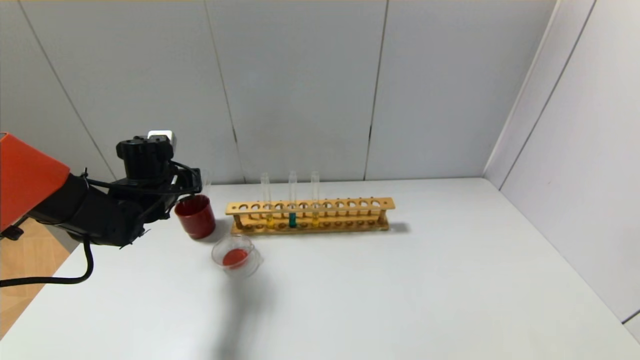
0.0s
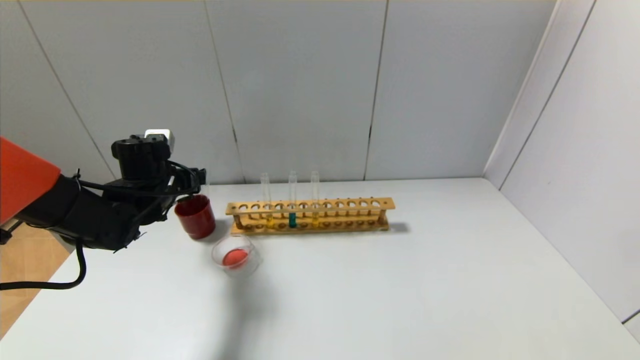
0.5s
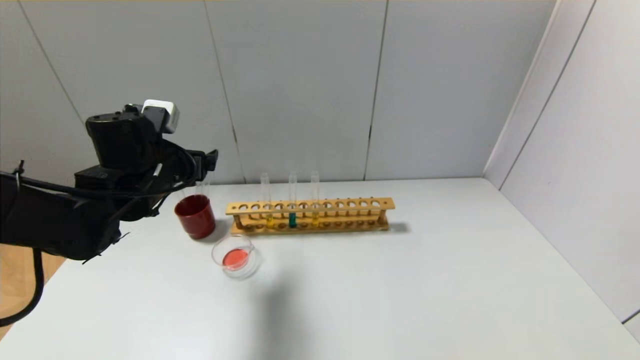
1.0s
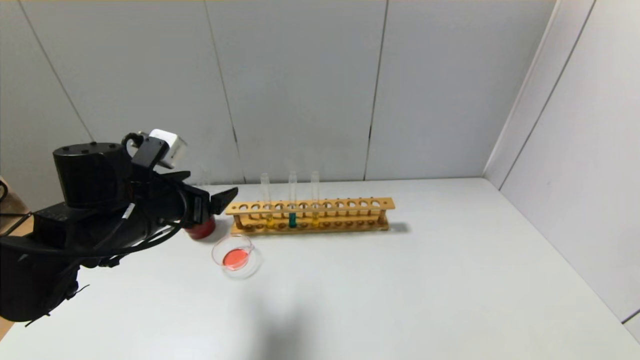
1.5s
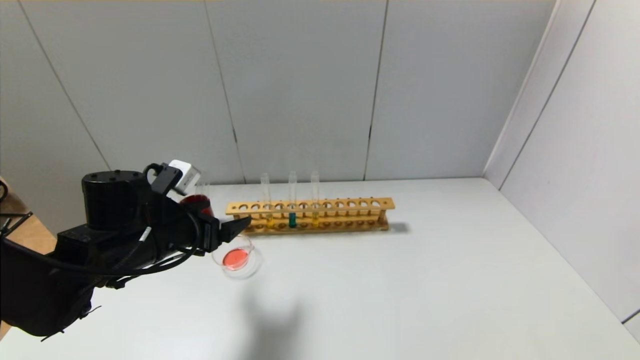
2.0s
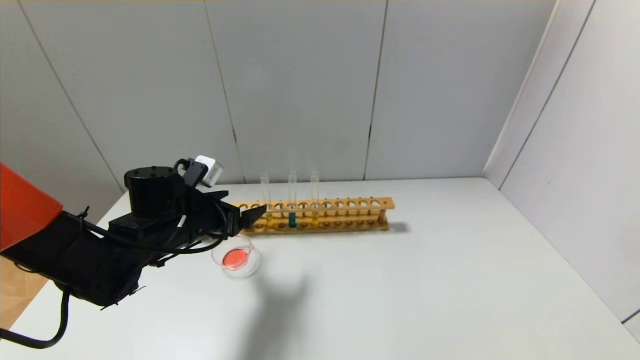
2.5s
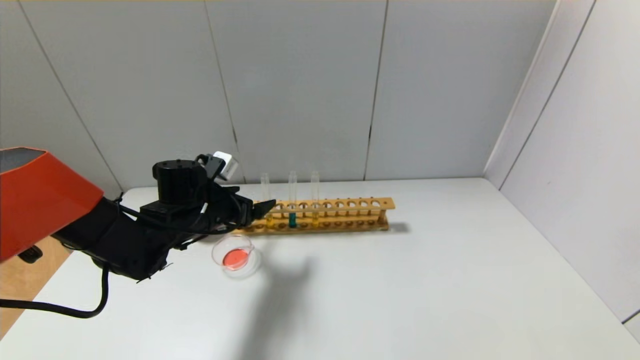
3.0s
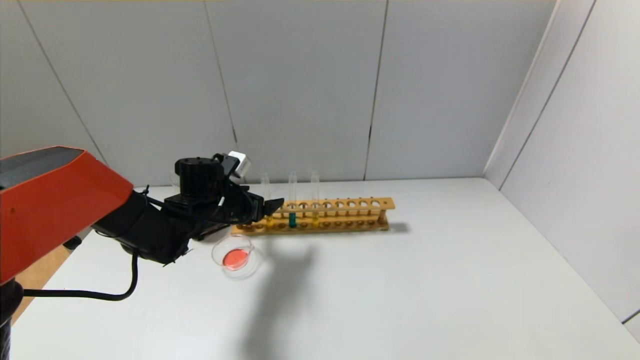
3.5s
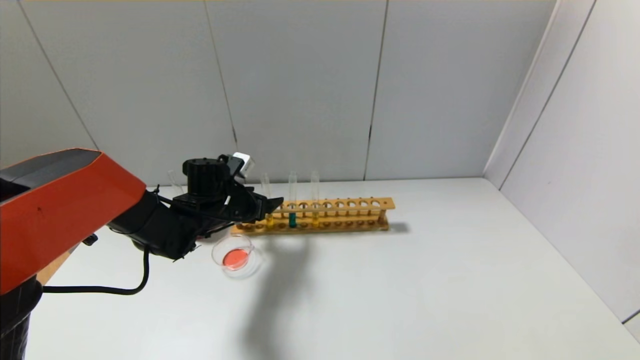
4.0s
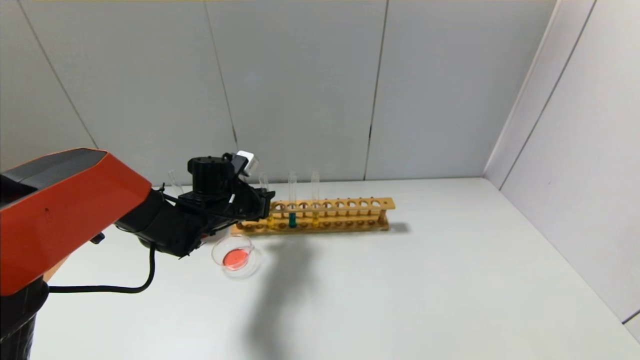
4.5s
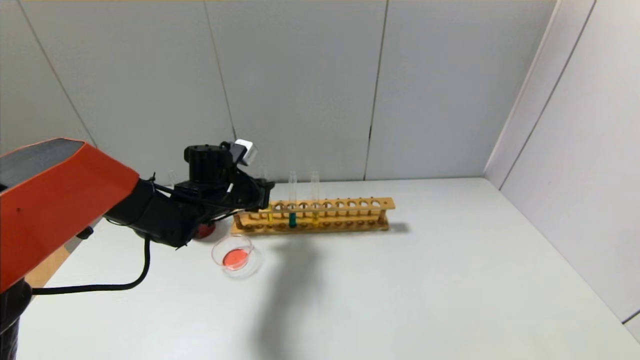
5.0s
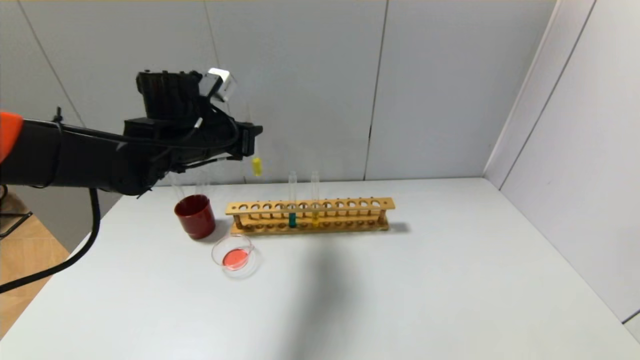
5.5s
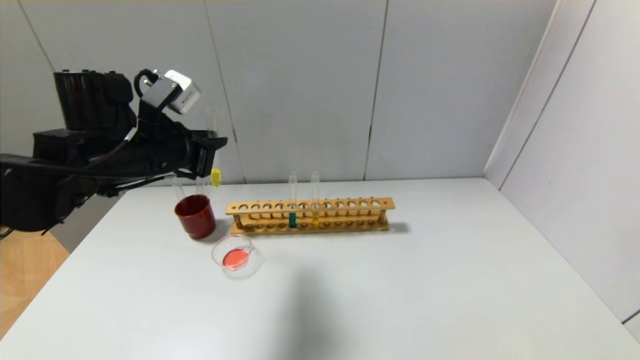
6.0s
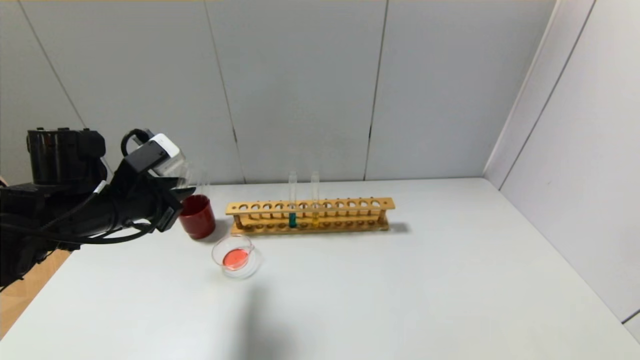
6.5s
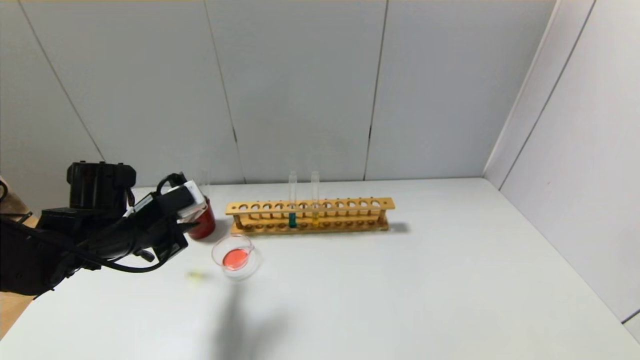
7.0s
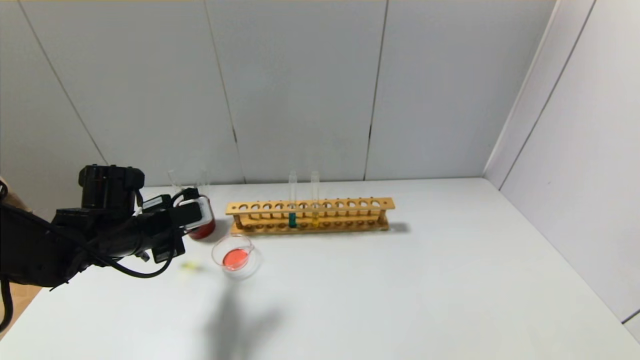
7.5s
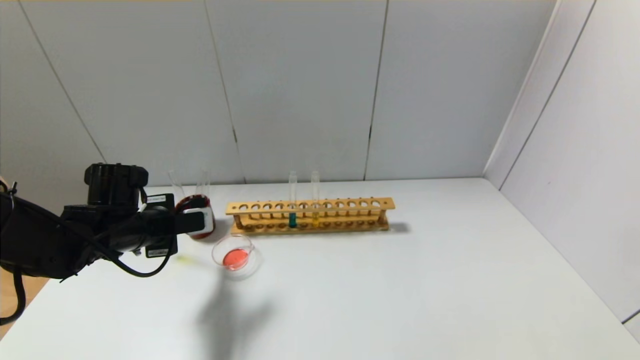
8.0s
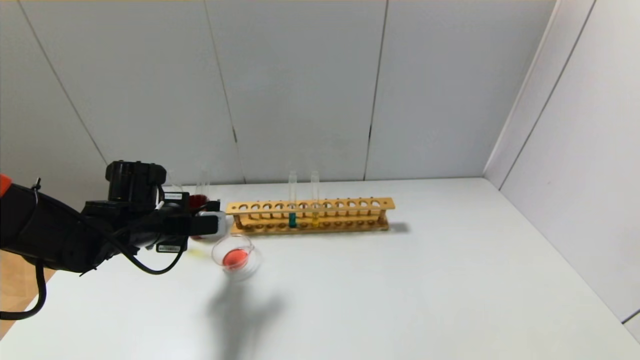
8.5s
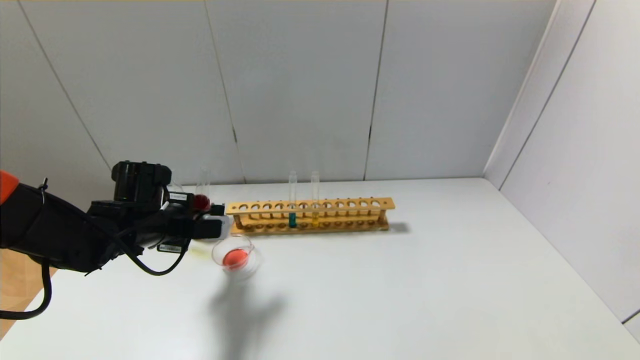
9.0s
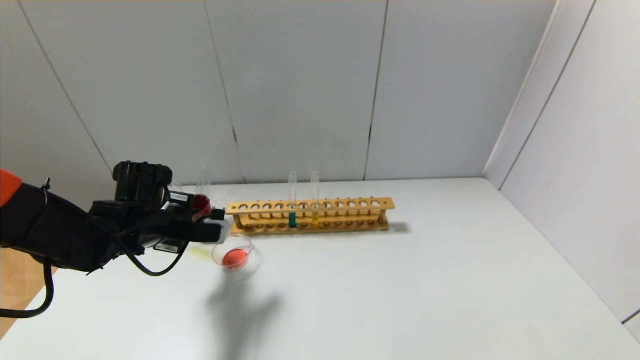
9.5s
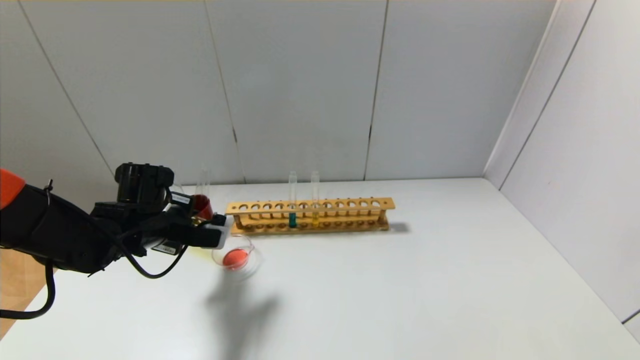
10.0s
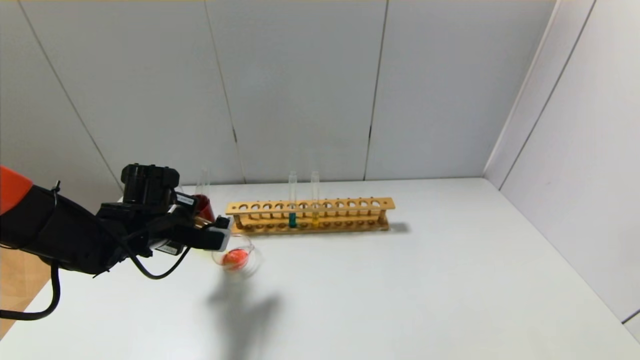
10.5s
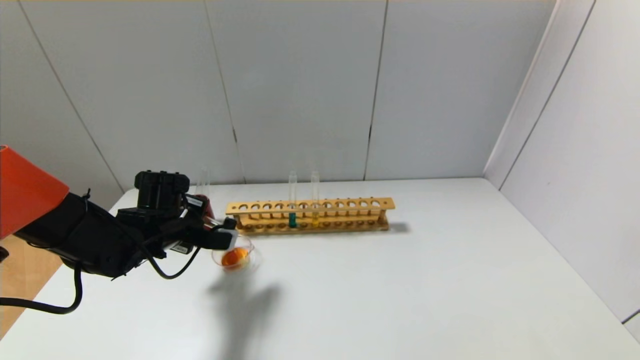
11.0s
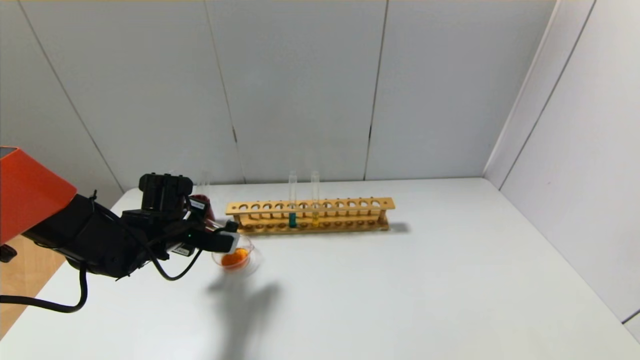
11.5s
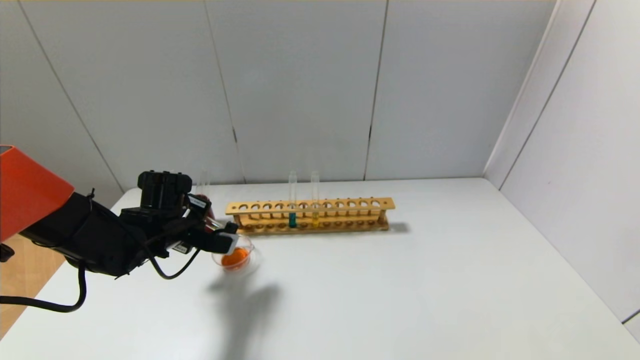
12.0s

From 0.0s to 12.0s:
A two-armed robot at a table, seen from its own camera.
Step, from 0.5s to 4.5s: Grasp the yellow reagent with the left gripper.
From 0.0s to 2.0s: The left gripper is displaced backward by approximately 10 cm, and opens up.
From 2.0s to 4.0s: The left gripper is displaced forward by roughly 10 cm.
From 4.0s to 6.0s: The left gripper shifts approximately 20 cm upward and backward, and closes its fingers.
From 6.0s to 8.0s: The left gripper is displaced downward and to the left by about 15 cm.
From 10.0s to 12.0s: There are only small adjustments of the grippers.

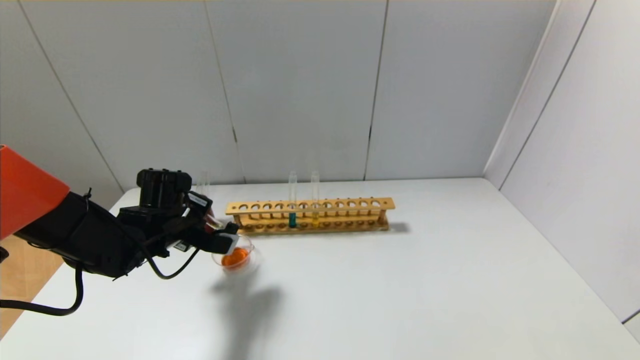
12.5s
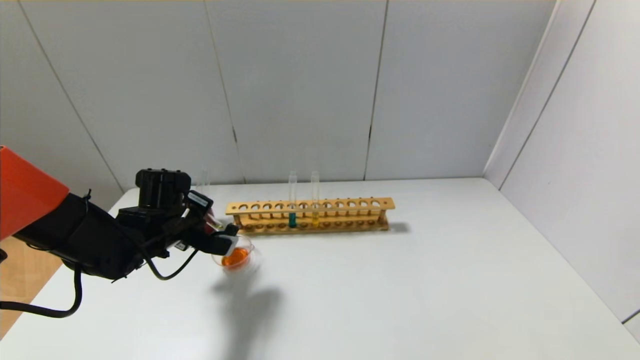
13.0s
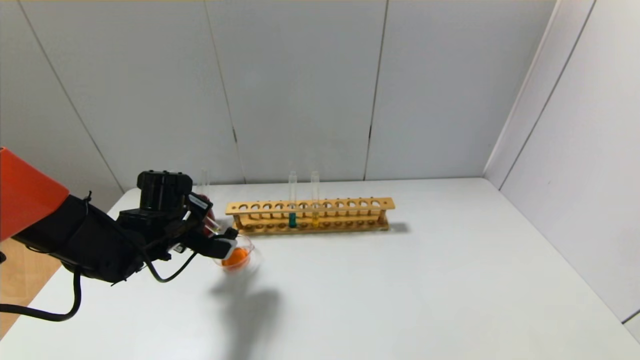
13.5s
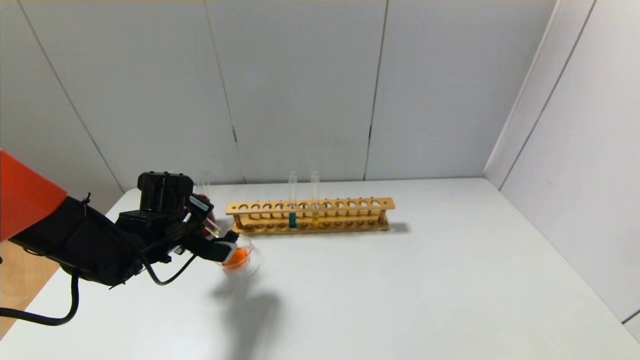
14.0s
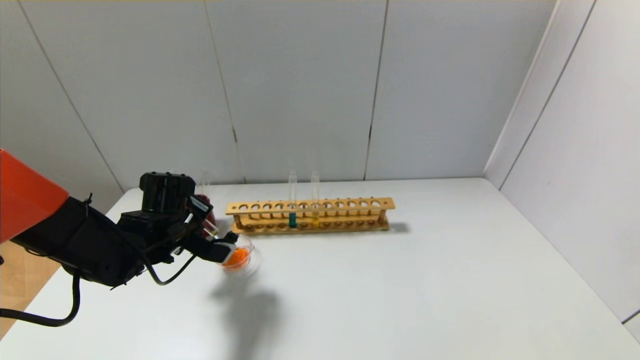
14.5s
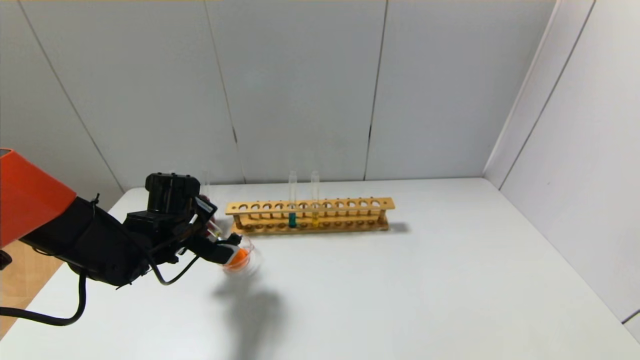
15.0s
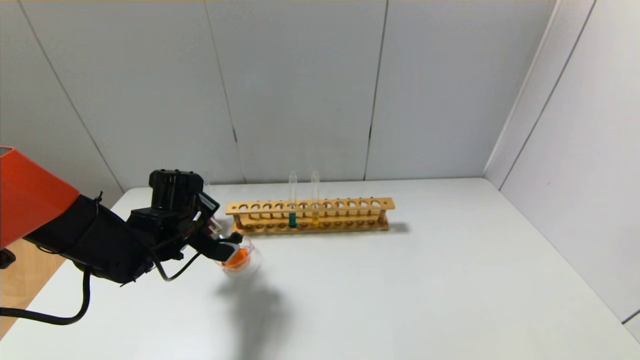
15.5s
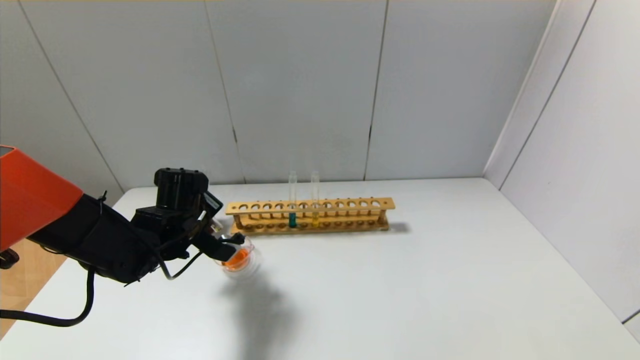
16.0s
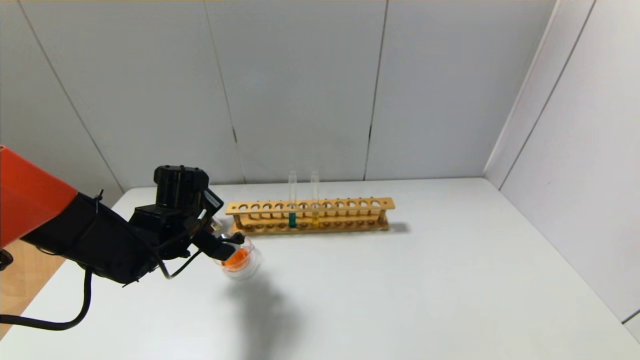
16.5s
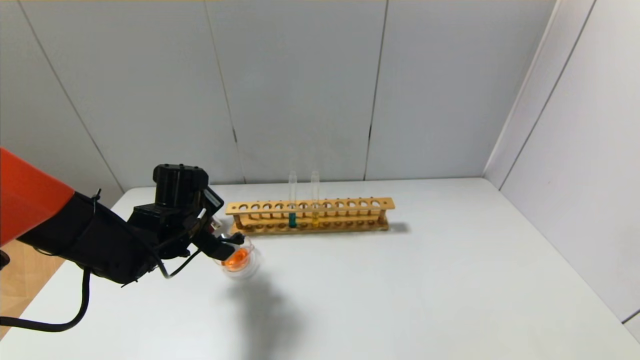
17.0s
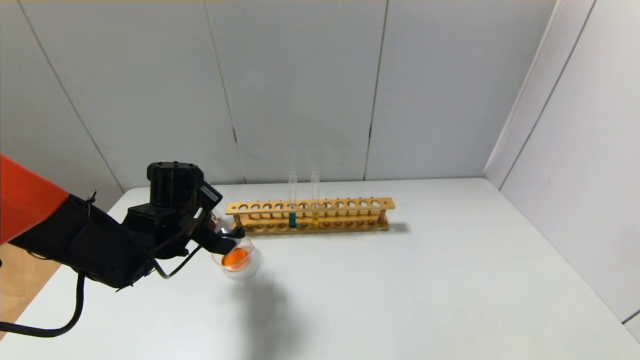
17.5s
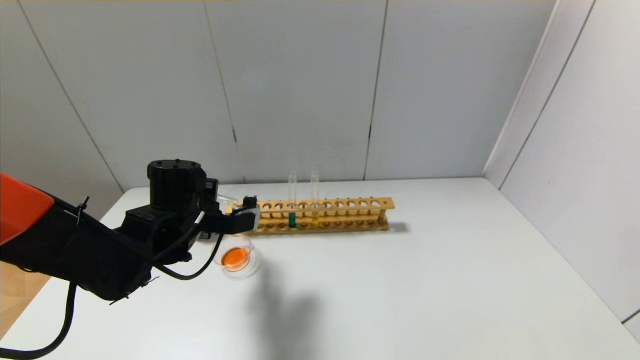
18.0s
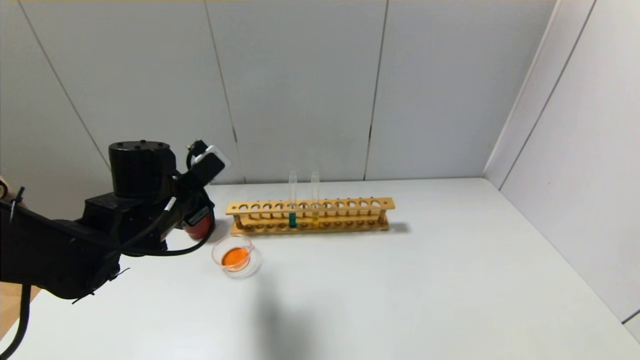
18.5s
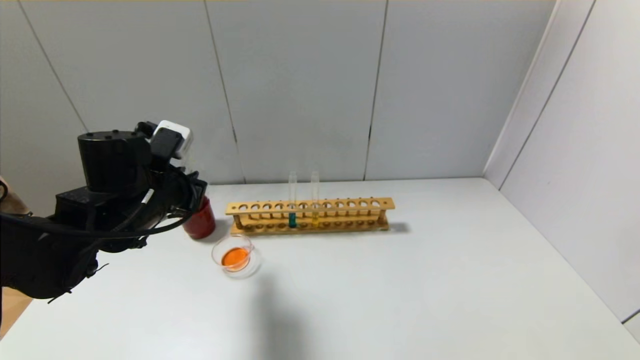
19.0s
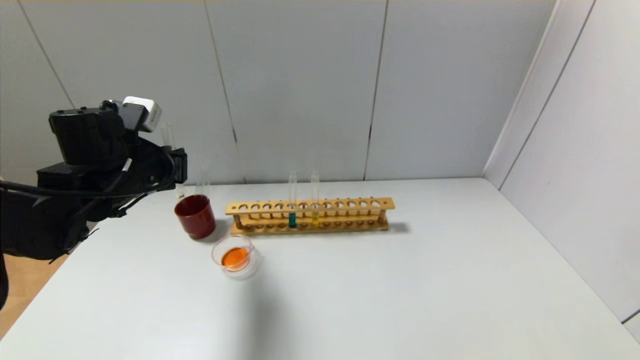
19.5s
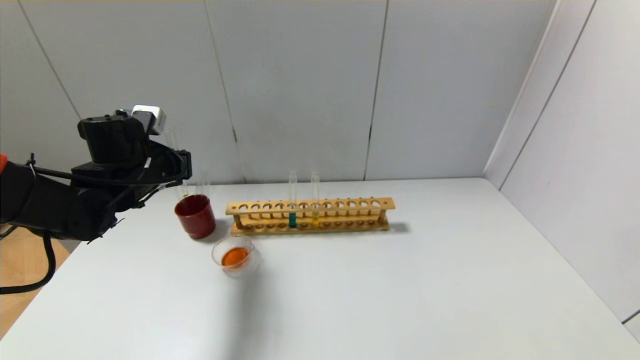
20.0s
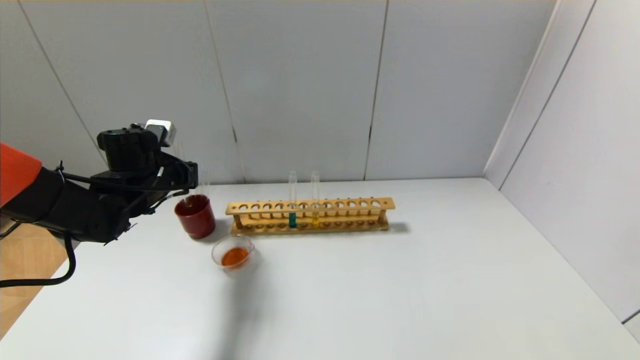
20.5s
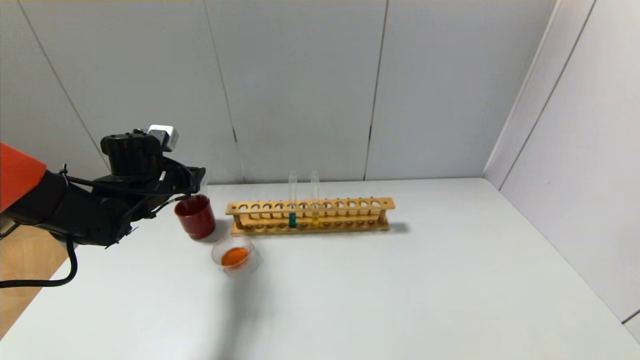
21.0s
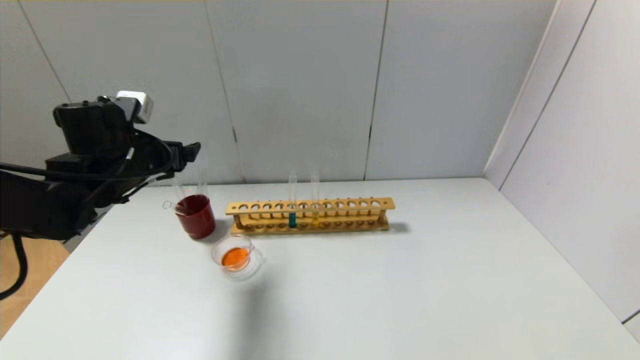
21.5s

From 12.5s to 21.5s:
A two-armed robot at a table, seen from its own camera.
Step, from 12.5s to 17.0s: Pour the yellow reagent into the graduated cylinder with the left gripper.
Step, from 17.5s to 21.0s: Place the test tube into the brown cup with the left gripper.
From 12.5s to 14.5s: The grippers move only a little.
From 14.5s to 17.0s: The grippers stay close to where they were, moving slightly.
From 17.0s to 19.5s: The left gripper is displaced upward and to the left by some 10 cm.
From 19.5s to 21.5s: The left gripper opens.
